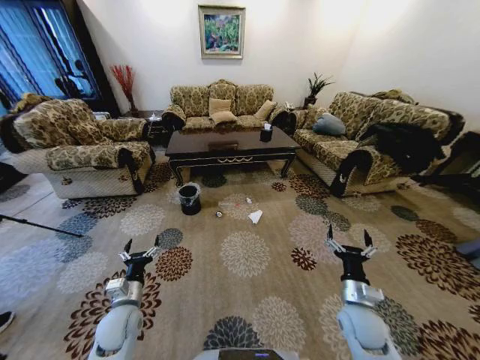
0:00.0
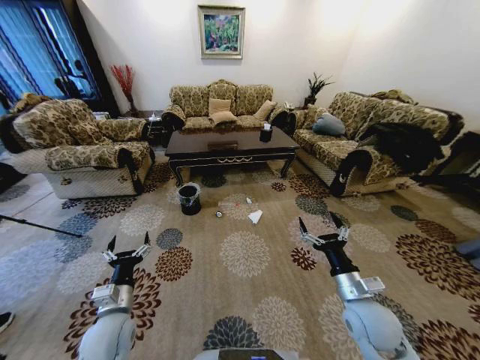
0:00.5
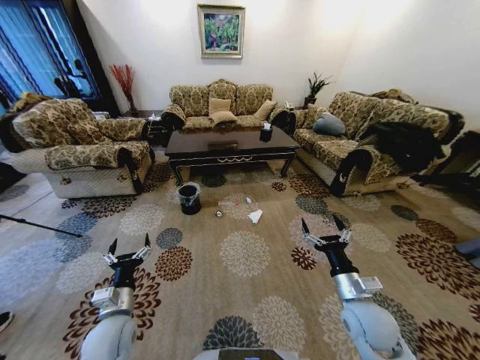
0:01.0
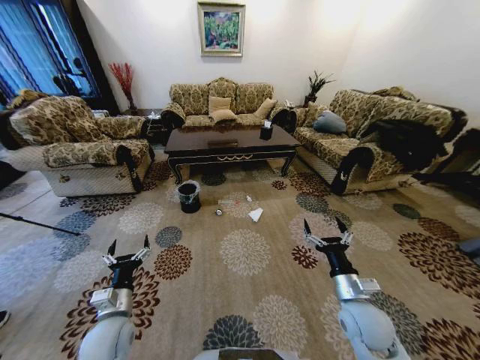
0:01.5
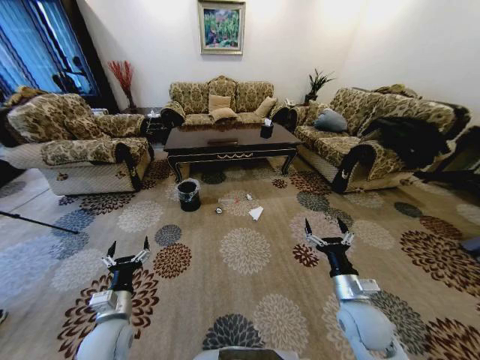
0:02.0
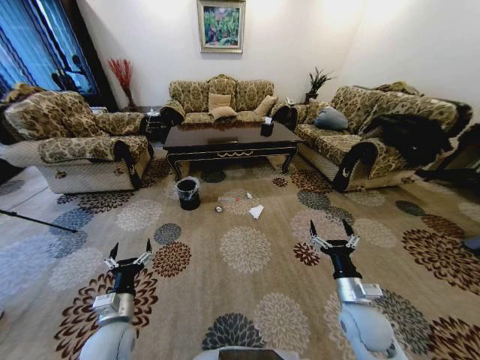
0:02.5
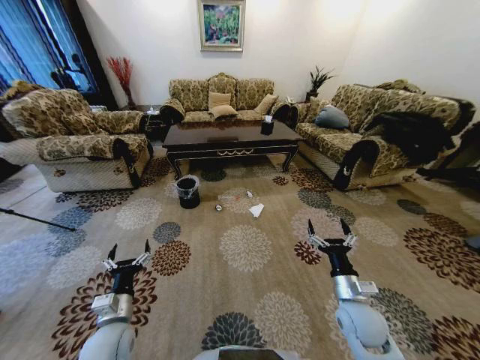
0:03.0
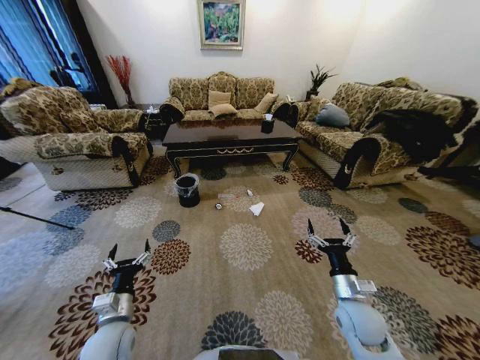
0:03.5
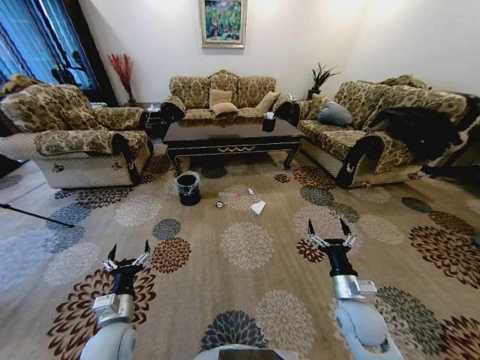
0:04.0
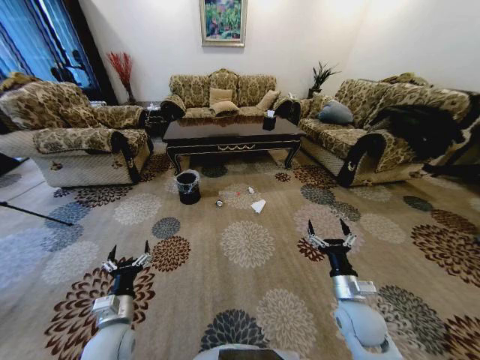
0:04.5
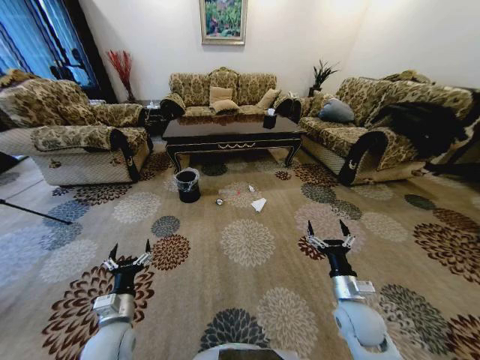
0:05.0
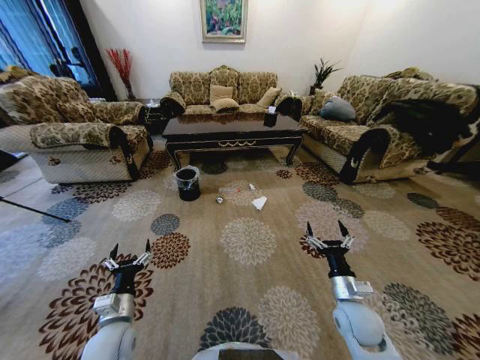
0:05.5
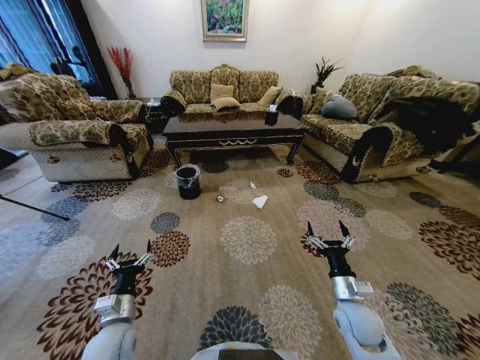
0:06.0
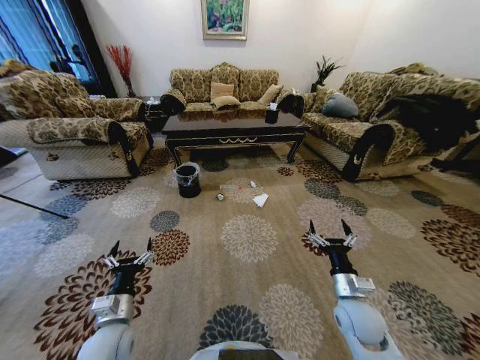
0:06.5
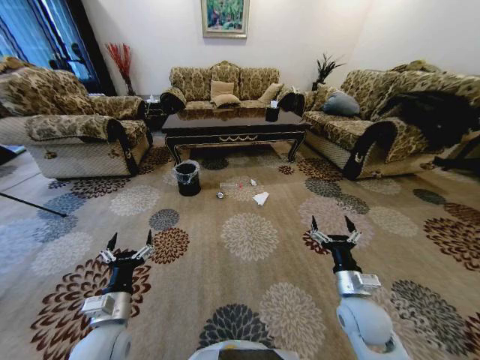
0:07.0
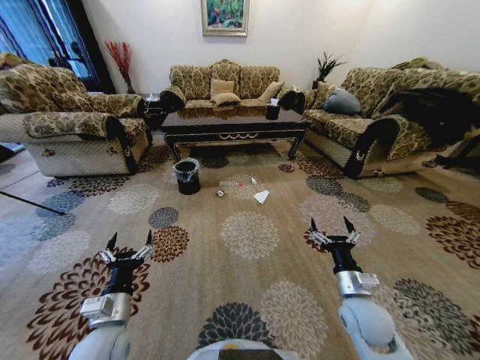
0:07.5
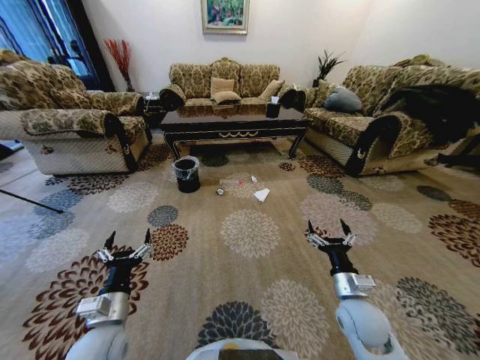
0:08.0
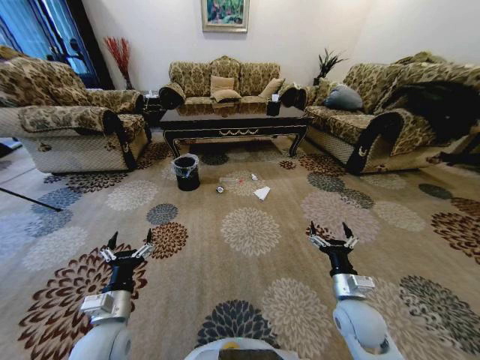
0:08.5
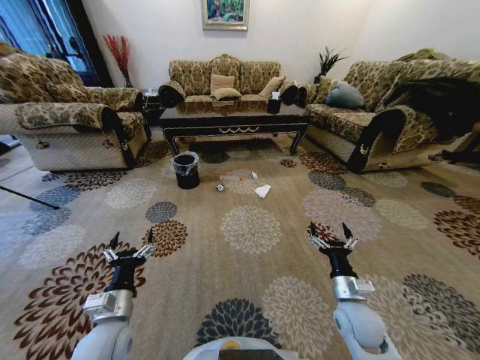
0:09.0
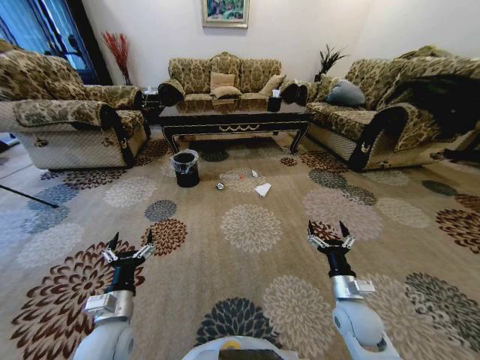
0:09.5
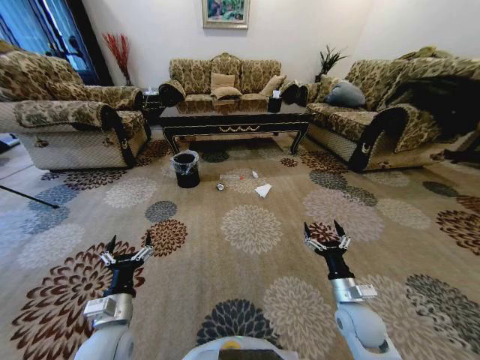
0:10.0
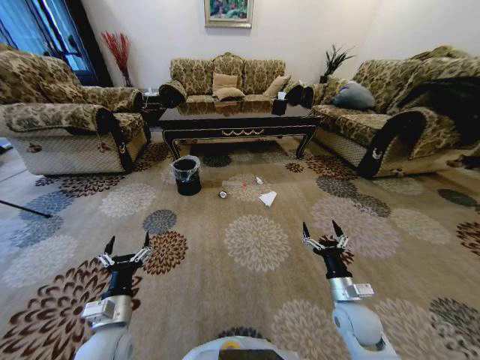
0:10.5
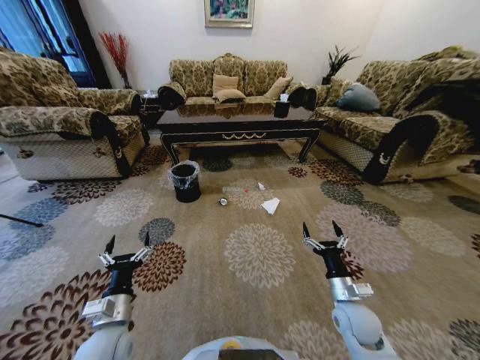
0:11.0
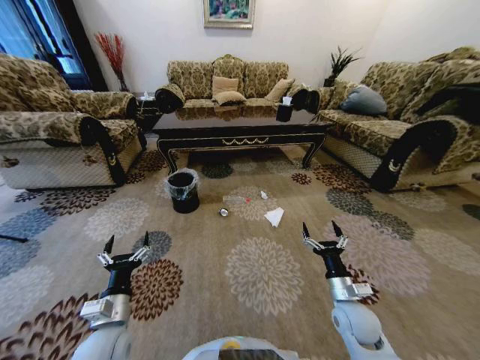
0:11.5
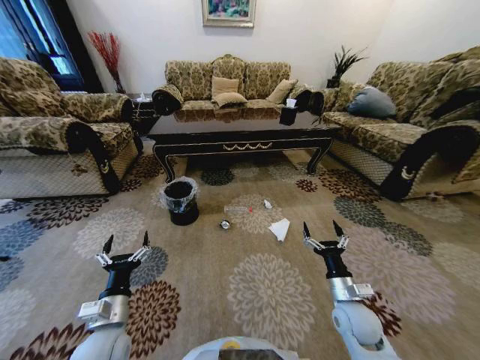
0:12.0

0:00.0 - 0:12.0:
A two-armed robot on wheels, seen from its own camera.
Task of the whole recording: Move to the front of the table and pick up the trash from the floor, then place it into the trash bin.
0:06.0 - 0:08.0: The left gripper travels upward by approximately 5 cm.

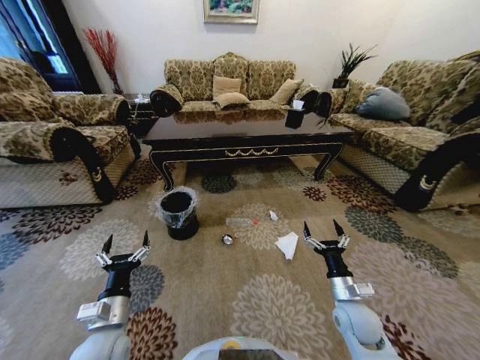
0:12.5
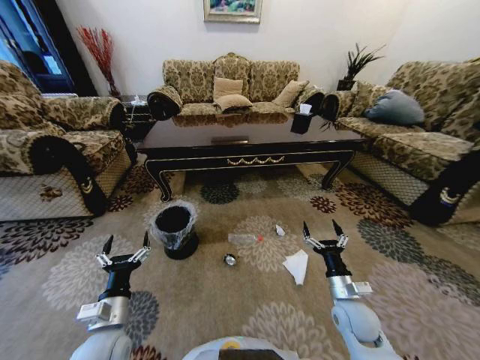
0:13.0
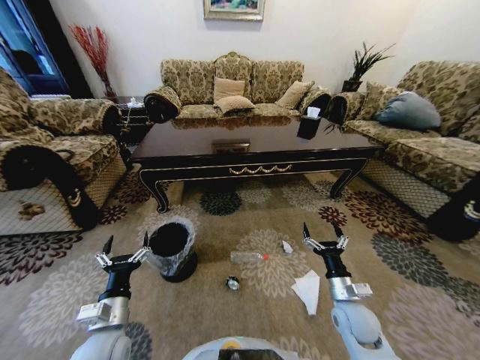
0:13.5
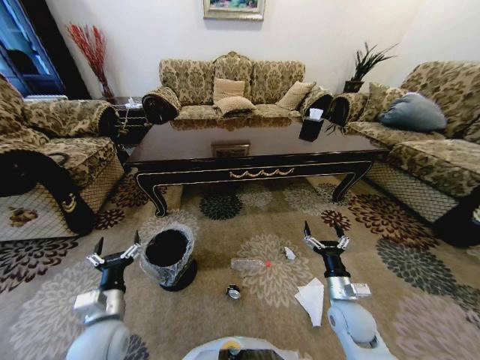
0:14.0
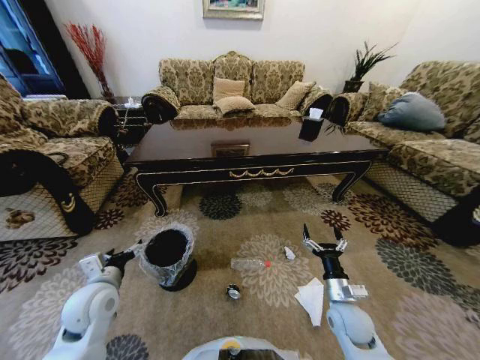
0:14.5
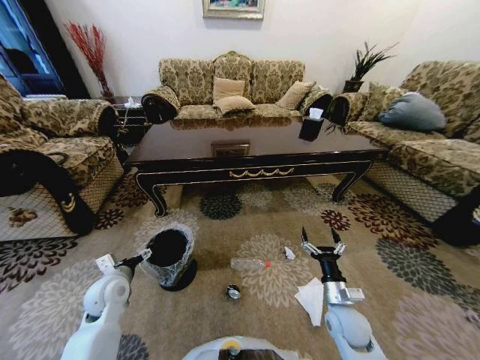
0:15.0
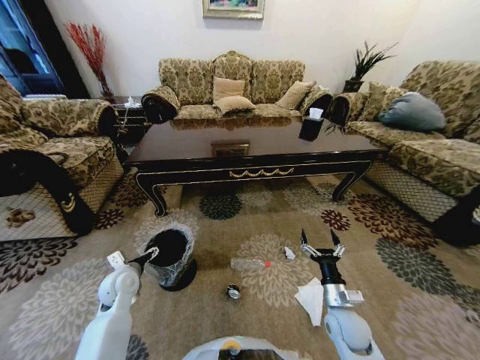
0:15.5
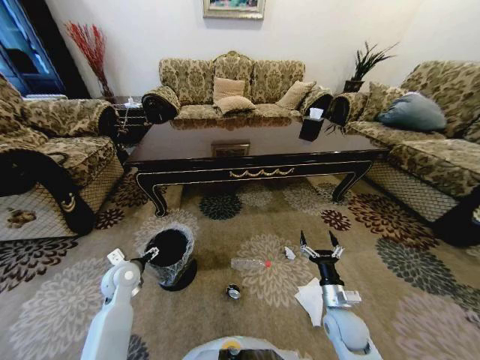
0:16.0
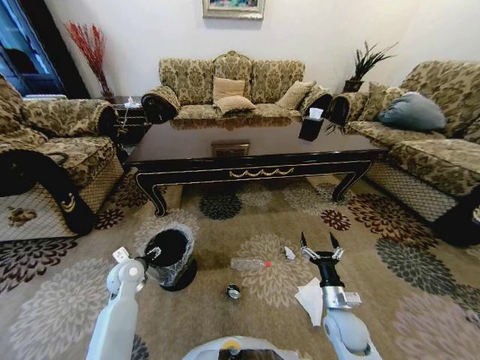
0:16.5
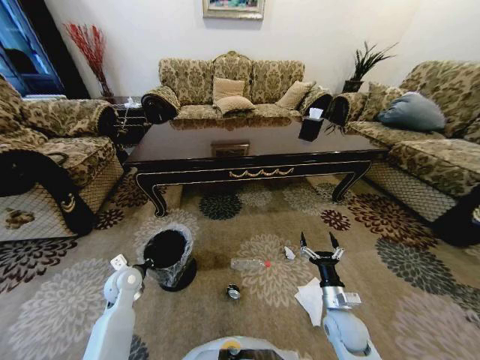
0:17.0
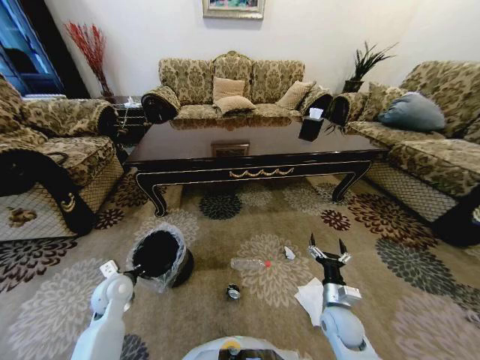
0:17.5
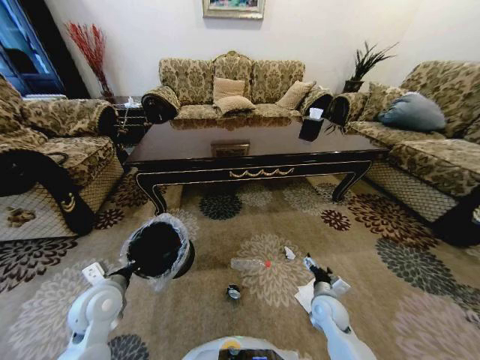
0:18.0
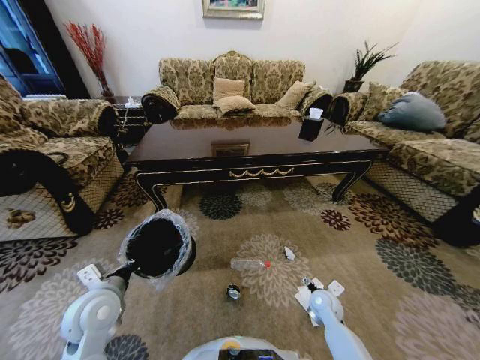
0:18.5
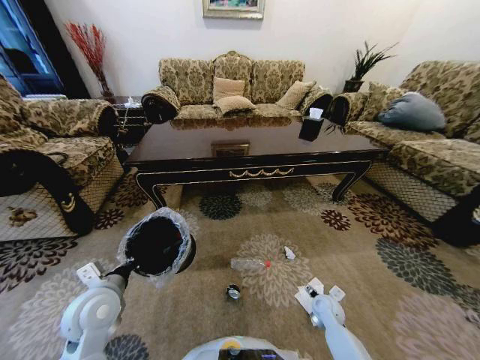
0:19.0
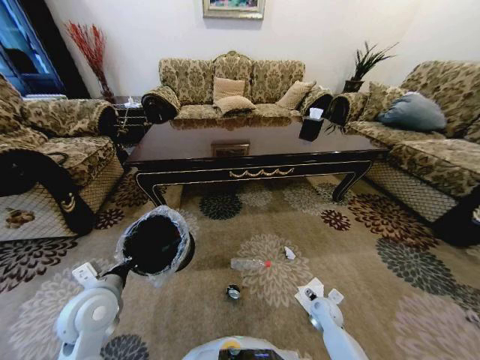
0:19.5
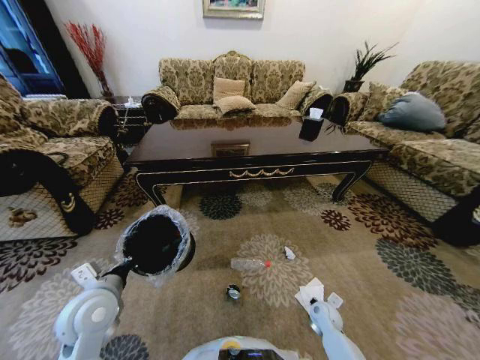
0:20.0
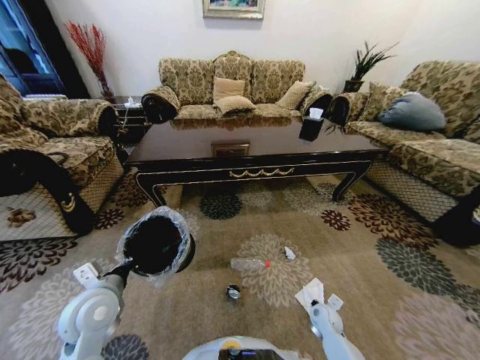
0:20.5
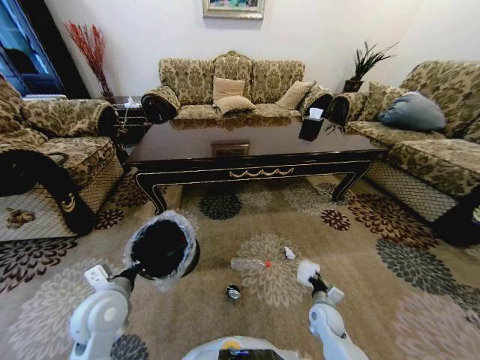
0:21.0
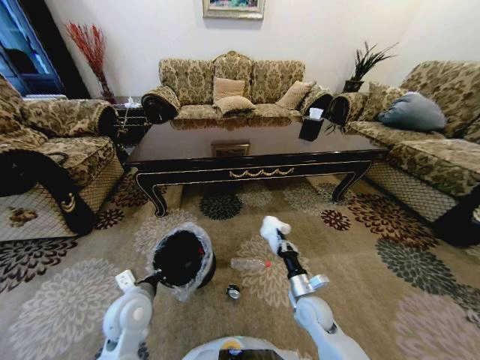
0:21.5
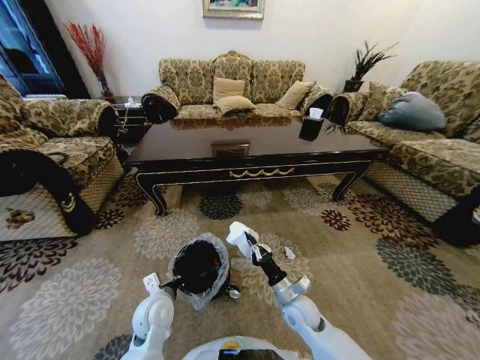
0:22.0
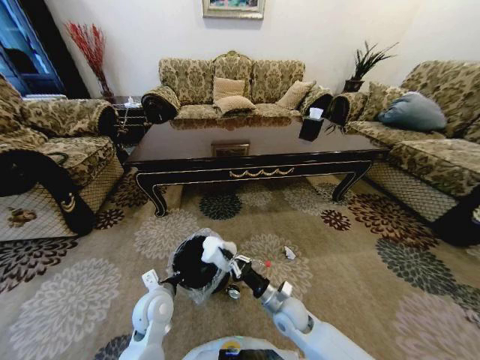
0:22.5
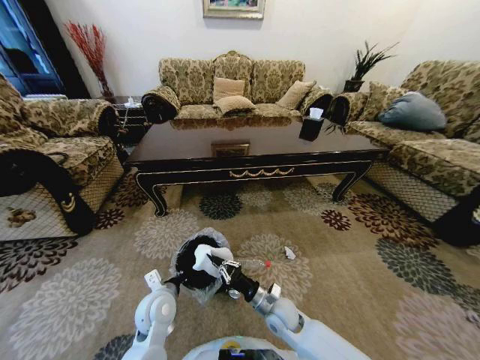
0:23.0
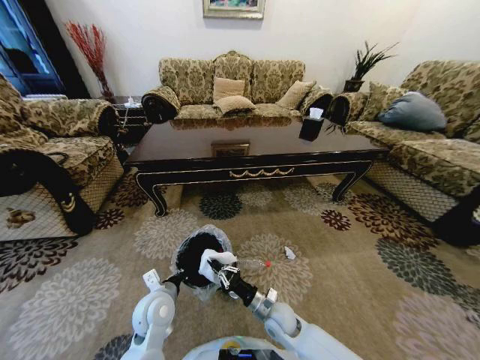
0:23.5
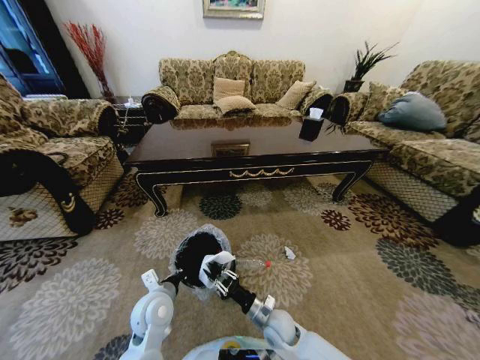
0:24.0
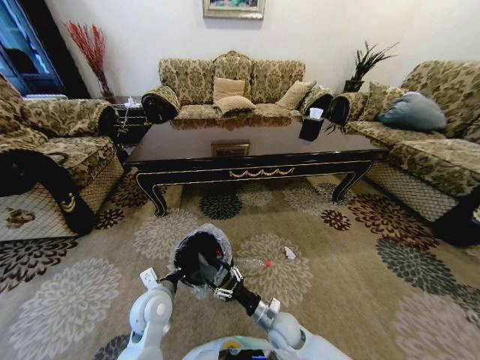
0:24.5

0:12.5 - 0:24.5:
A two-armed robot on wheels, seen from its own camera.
Task of the whole recording: Move to the front of the table and pick up the trash from the floor, then place it into the trash bin.
0:12.5 - 0:14.5: The left gripper goes approximately 10 cm forward.
0:14.5 - 0:16.5: The left gripper moves forward and downward, roughly 10 cm.
0:16.5 - 0:18.5: The left gripper travels backward and upward by some 15 cm, and closes its fingers. The right gripper moves forward and downward, approximately 10 cm.
0:18.5 - 0:20.5: The right gripper travels downward by roughly 5 cm, and closes up.
0:20.5 - 0:22.5: The right gripper is displaced to the left and upward by about 20 cm, while the left gripper is displaced to the right and downward by some 15 cm.
0:22.5 - 0:24.5: The right gripper shifts by approximately 5 cm, and opens its fingers.

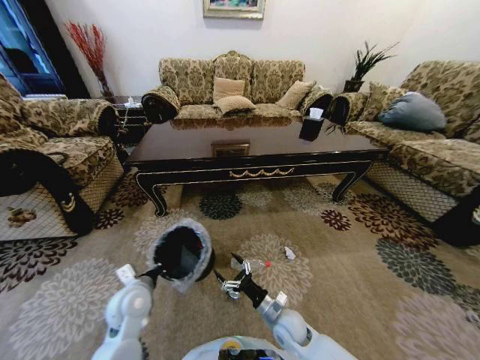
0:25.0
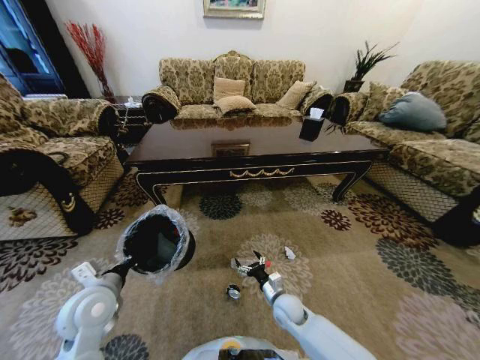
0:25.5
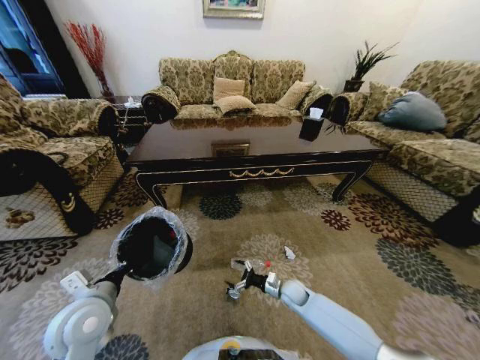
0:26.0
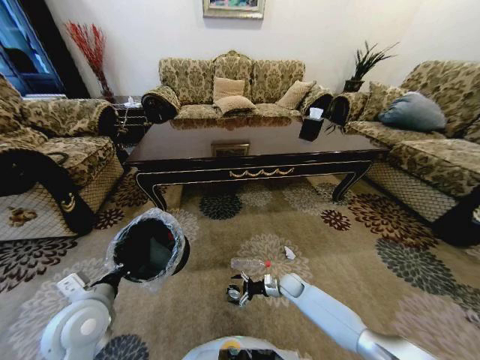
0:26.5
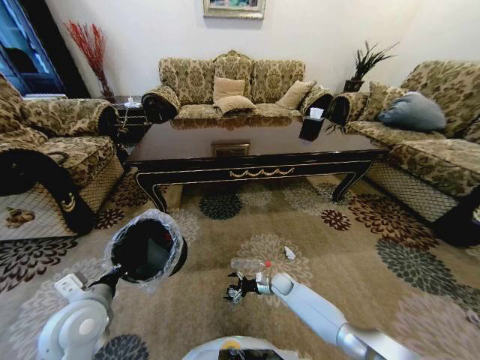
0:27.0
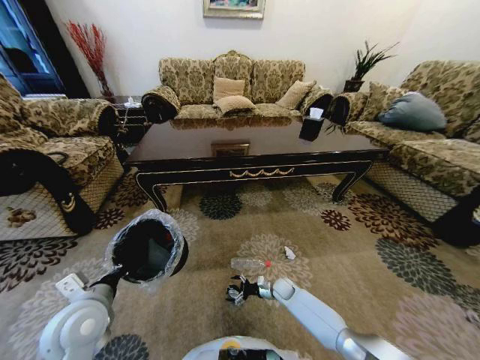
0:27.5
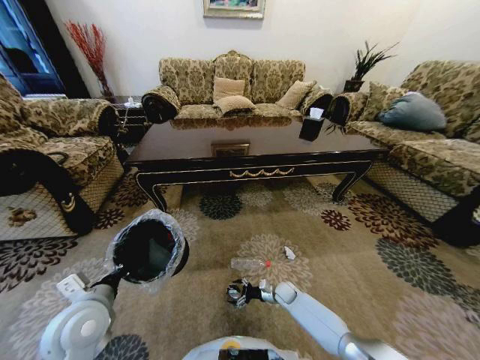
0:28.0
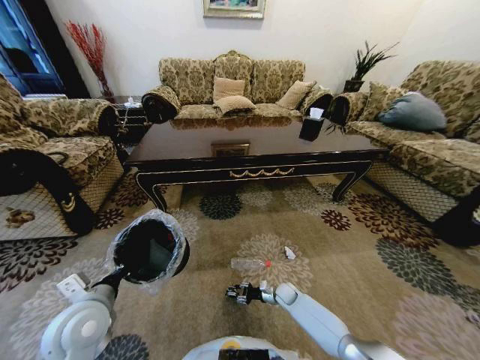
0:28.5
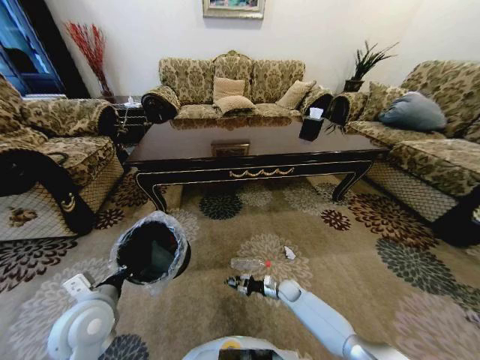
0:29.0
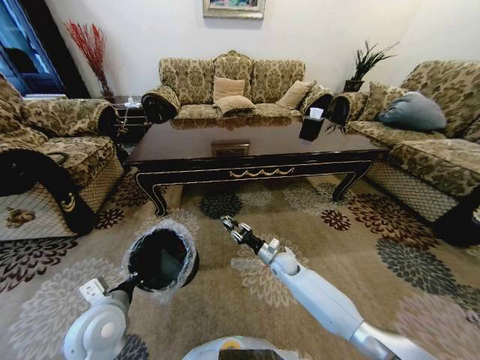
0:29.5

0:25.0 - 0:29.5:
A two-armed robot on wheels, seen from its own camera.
Task of the whole recording: Move to the front of the table and pick up the trash from the floor, then place it into the trash bin.
0:25.0 - 0:27.0: The right gripper moves forward and downward, roughly 20 cm, while the left gripper shifts roughly 10 cm upward and backward.
0:27.0 - 0:29.5: The right gripper travels upward by about 10 cm, and closes its fingers.
